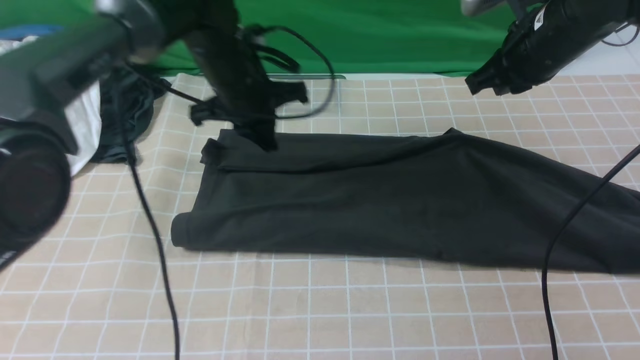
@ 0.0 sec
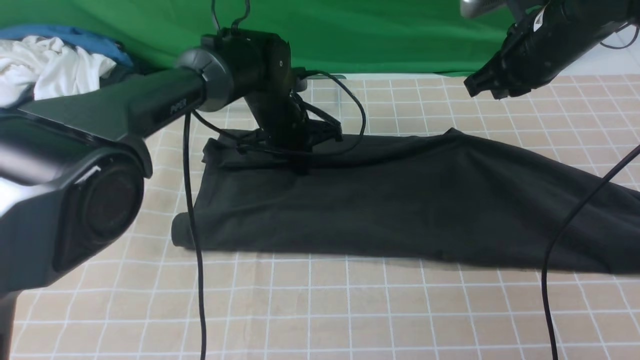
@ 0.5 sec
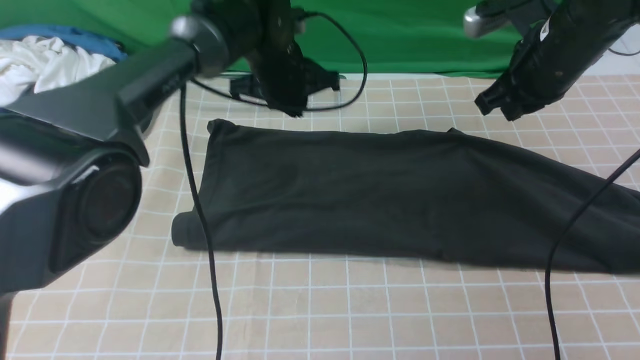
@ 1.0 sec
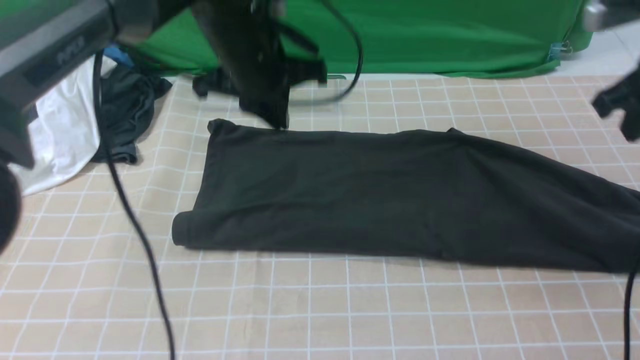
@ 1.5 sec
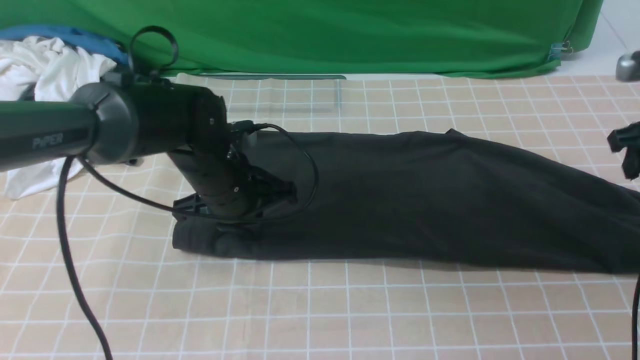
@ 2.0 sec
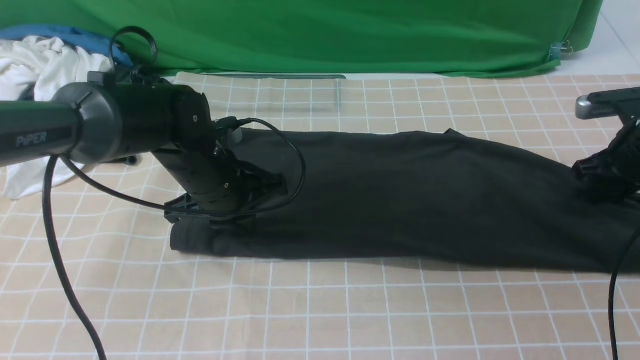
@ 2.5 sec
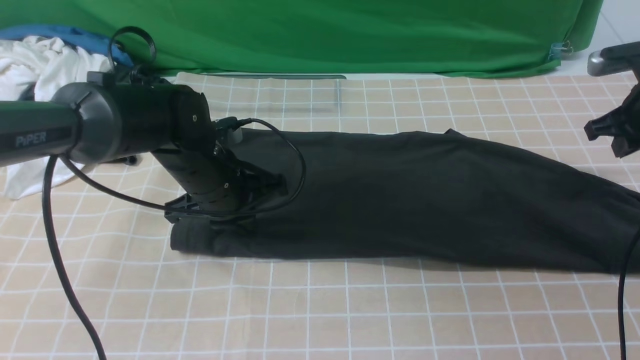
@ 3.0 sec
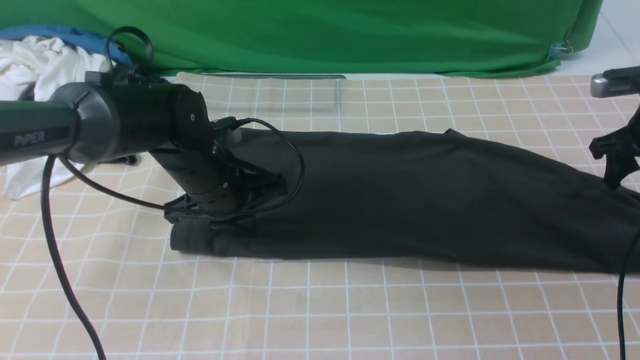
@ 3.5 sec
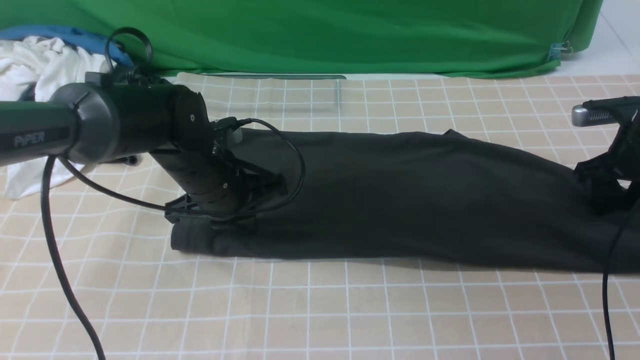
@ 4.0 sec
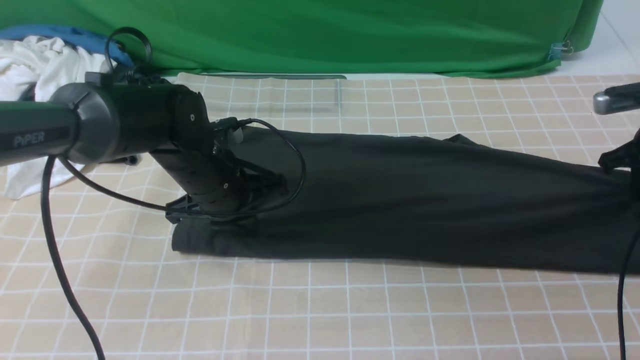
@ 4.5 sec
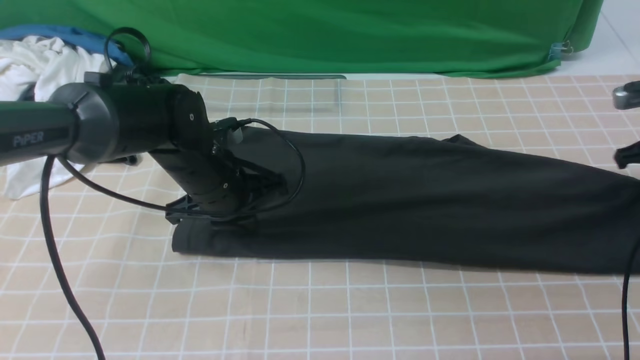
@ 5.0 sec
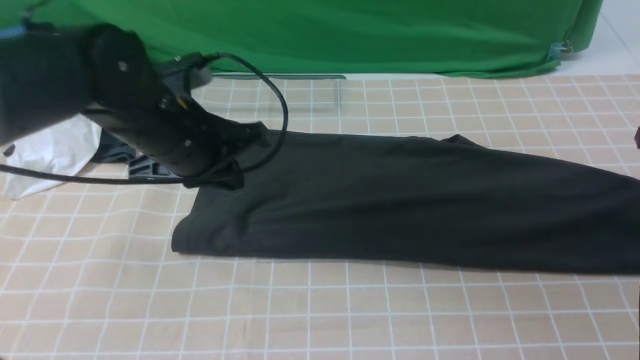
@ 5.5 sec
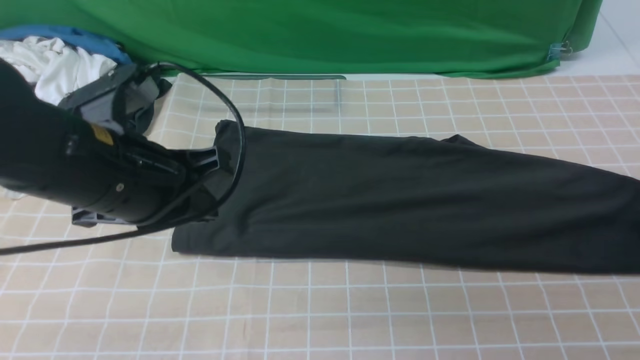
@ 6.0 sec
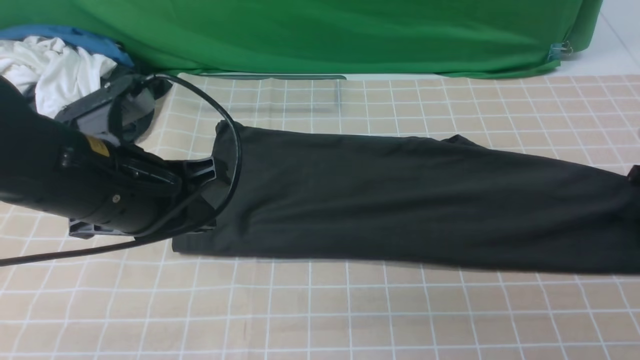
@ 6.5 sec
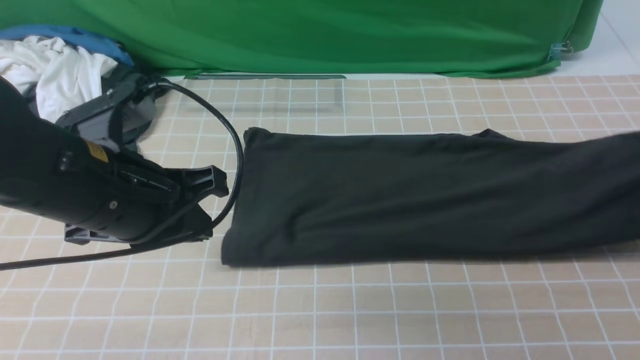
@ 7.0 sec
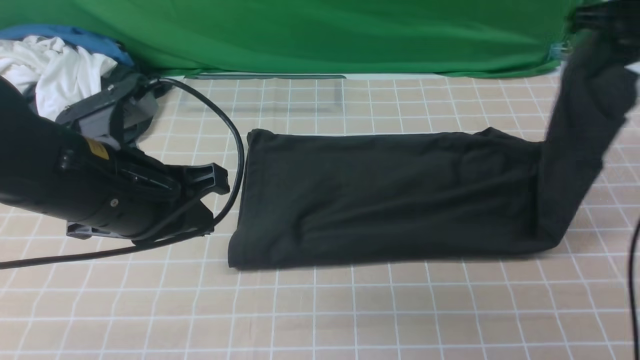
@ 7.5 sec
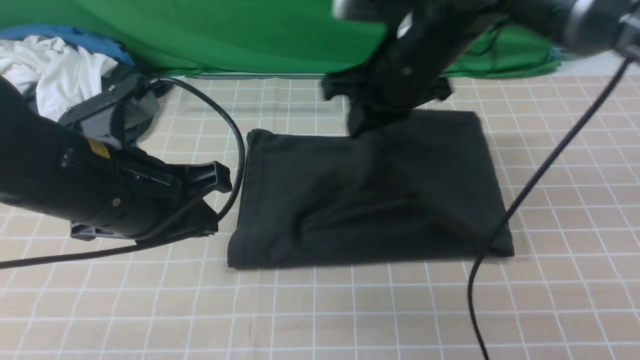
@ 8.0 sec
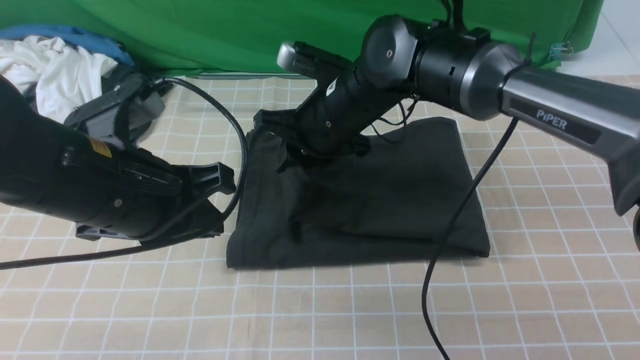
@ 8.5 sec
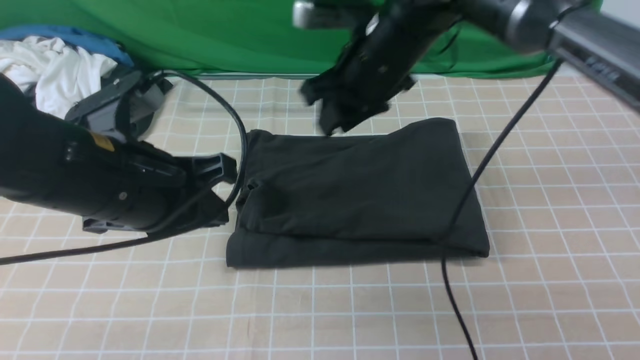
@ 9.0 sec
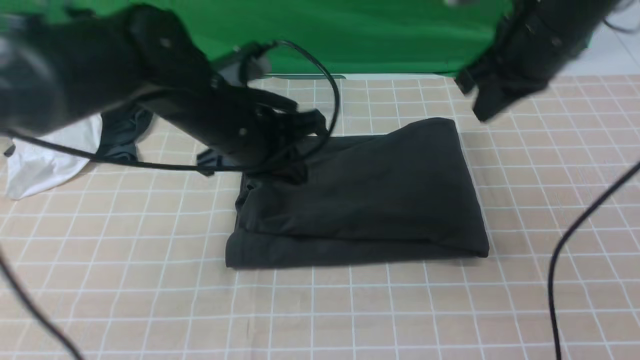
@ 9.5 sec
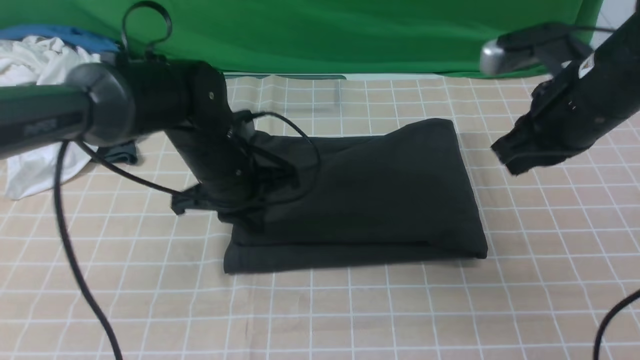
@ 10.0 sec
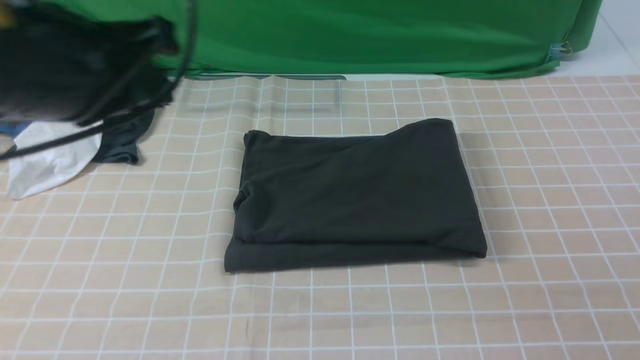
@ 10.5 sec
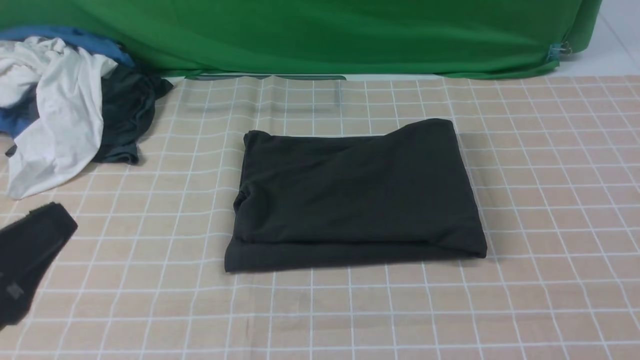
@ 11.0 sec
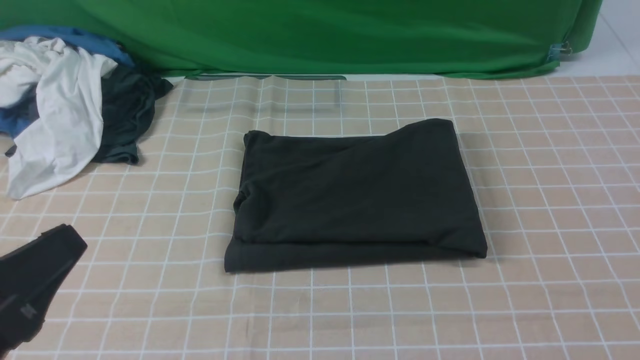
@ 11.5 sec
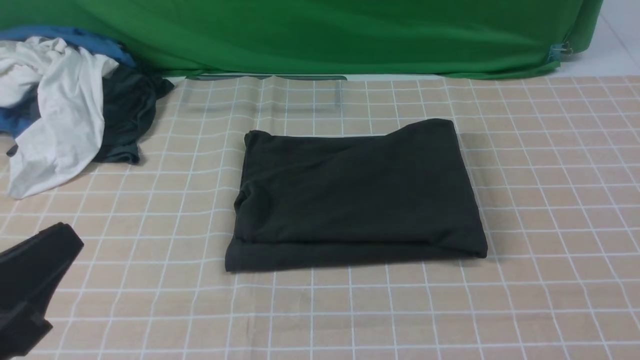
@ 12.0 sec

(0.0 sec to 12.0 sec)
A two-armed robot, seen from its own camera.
Step, 0.0 sec - 7.0 sec: use the right arm to clamp the right edge of the fabric.
Step, 7.5 sec - 8.5 sec: use the right arm to drag the right edge of the fabric to the left and folds it over the left edge.
0.0 sec - 2.0 sec: The right gripper is displaced to the right by about 15 cm, and opens its fingers. The left gripper goes approximately 10 cm backward and downward.
2.0 sec - 4.0 sec: The right gripper heads downward, covering roughly 5 cm, and closes and opens again.
4.0 sec - 6.0 sec: The right gripper heads to the right, covering roughly 10 cm, and opens. The left gripper is displaced upward and backward by some 15 cm.
6.0 sec - 8.0 sec: The right gripper travels to the left by some 40 cm, and closes up.
8.0 sec - 10.0 sec: The left gripper heads forward and downward, covering about 15 cm. Meanwhile the right gripper travels to the right and backward by approximately 15 cm.
10.0 sec - 12.0 sec: Both grippers move backward, about 30 cm. The right gripper opens.

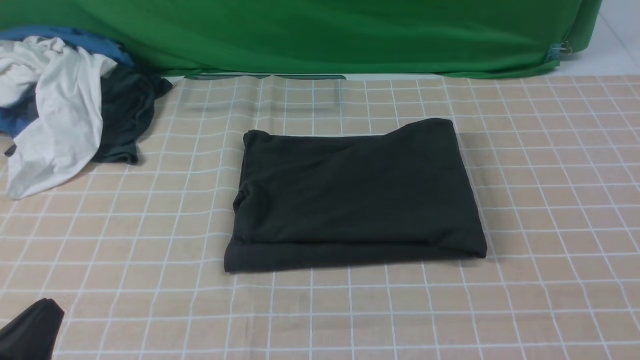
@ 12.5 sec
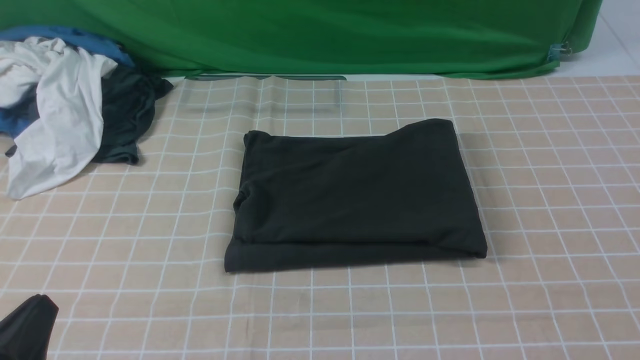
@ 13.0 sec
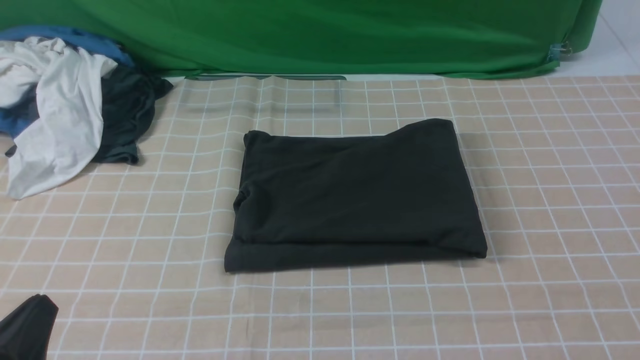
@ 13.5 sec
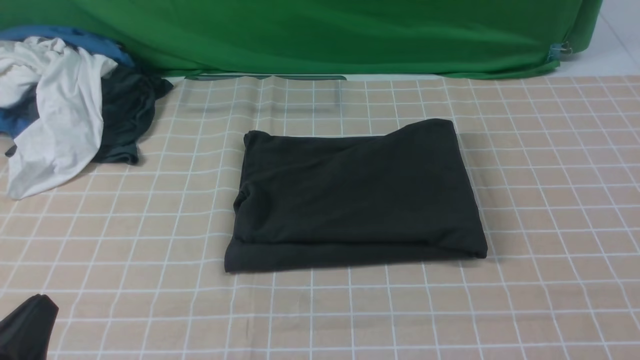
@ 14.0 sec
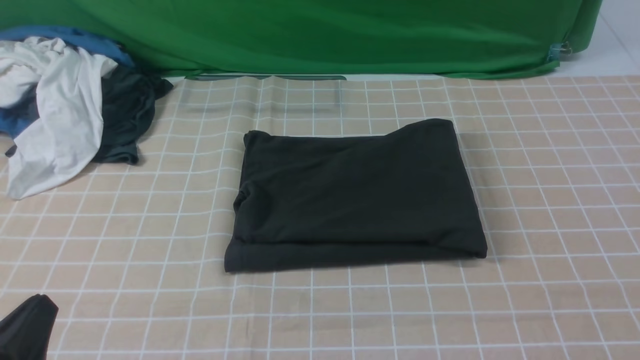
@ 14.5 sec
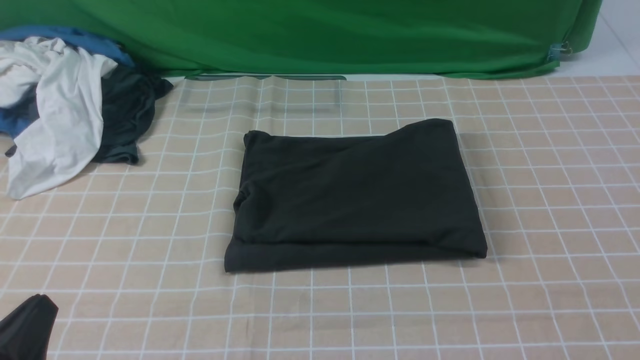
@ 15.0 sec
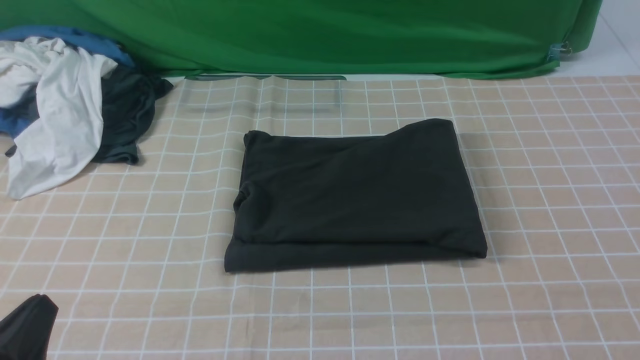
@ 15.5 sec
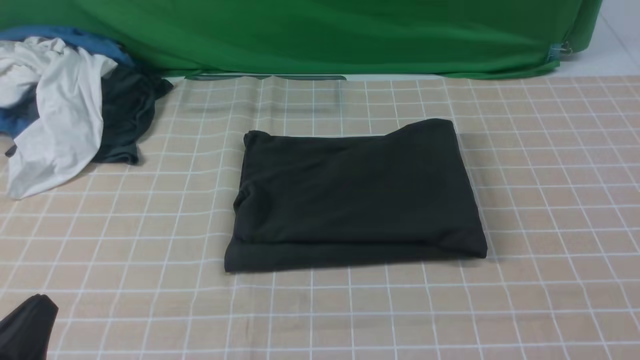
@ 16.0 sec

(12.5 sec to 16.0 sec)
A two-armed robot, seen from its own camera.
14.5 sec - 16.0 sec: Both grippers stay put.

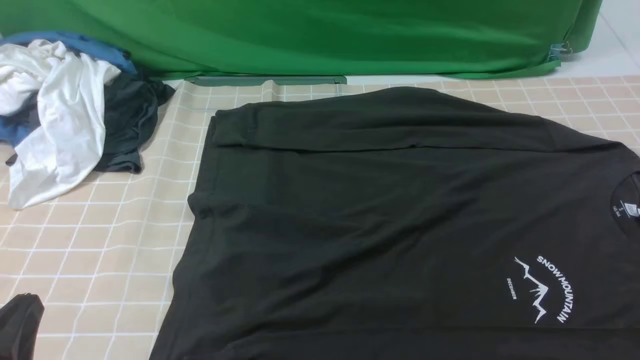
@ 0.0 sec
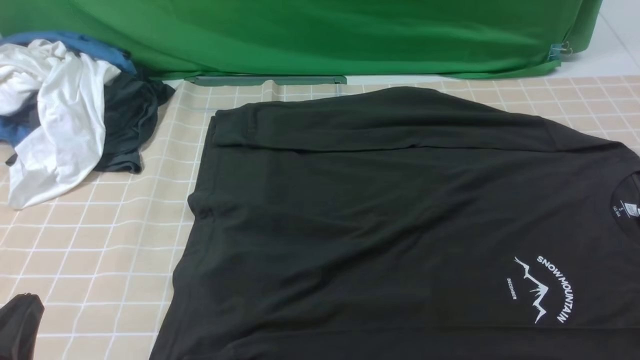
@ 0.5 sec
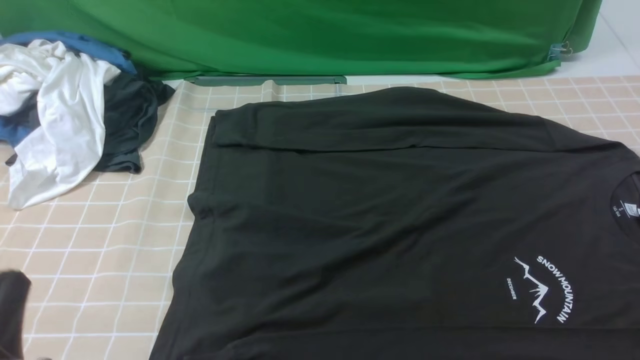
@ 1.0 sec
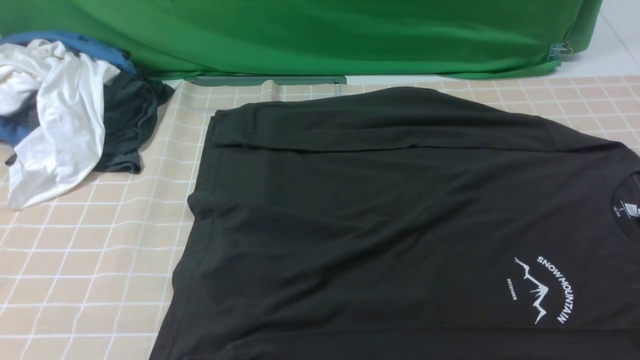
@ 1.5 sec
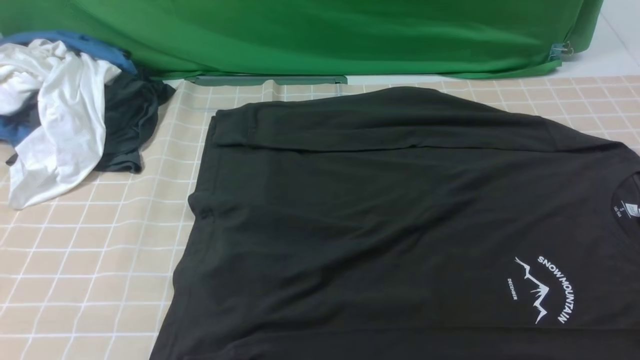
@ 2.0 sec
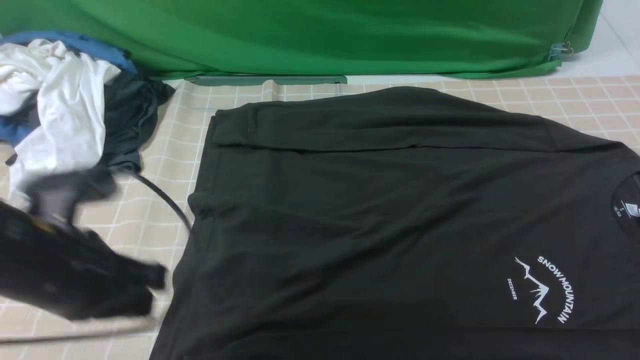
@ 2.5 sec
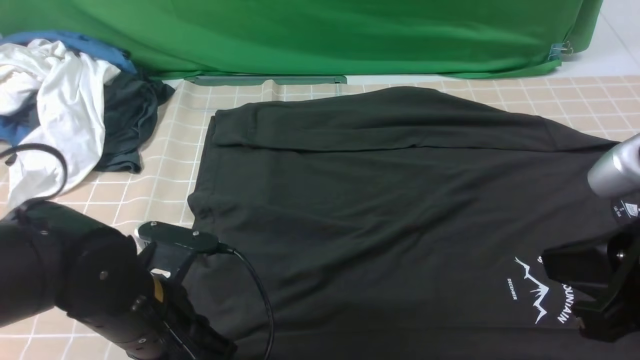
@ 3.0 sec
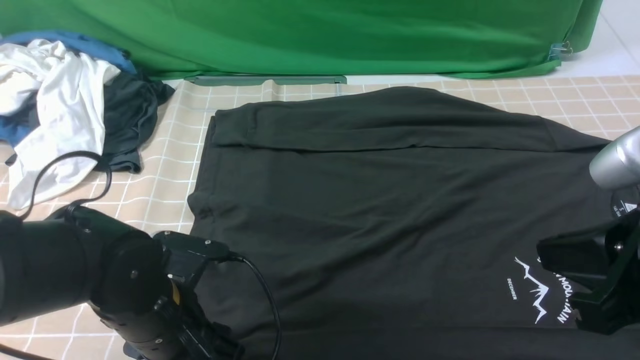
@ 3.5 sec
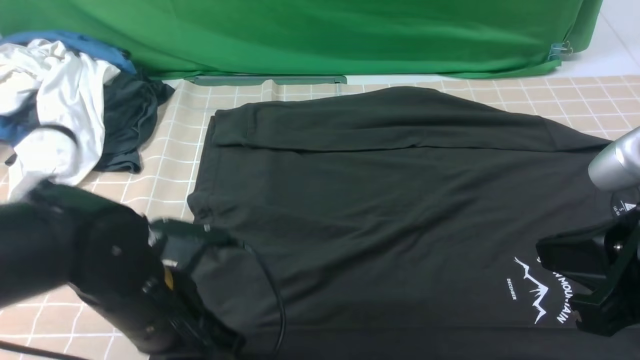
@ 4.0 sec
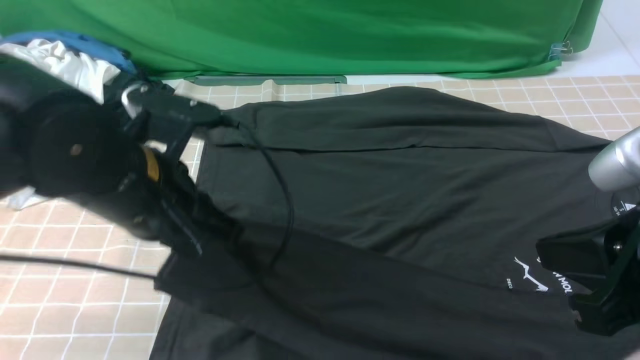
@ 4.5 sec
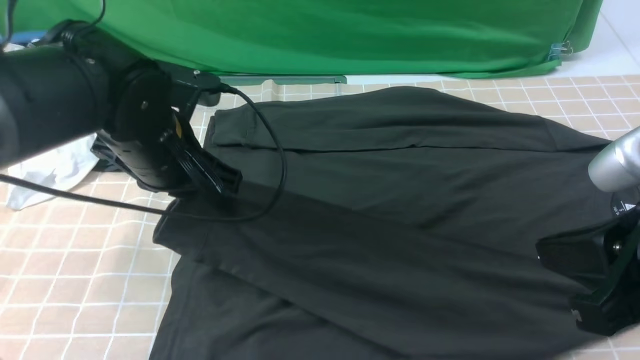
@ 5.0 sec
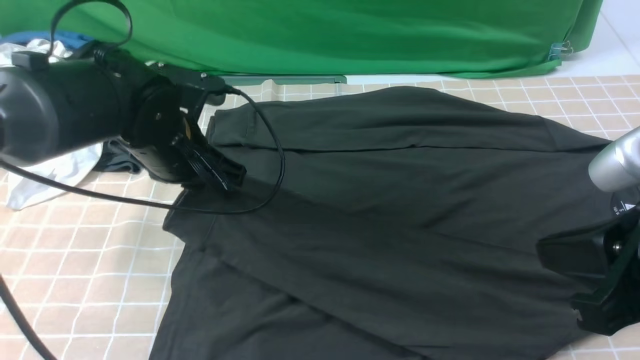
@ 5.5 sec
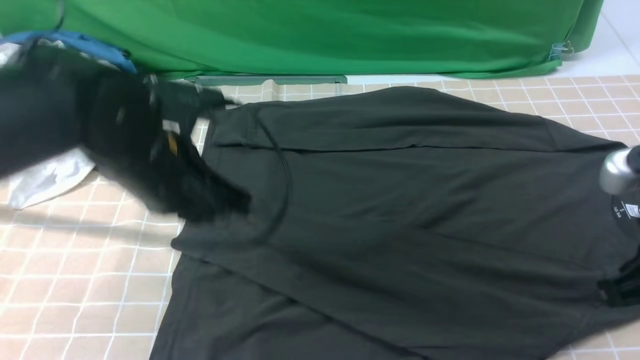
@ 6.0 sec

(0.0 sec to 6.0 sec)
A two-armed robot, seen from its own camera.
Step, 0.0 sec - 4.0 sec: use the left arm to clamp the cuff closest to it.
Step, 4.5 sec - 5.5 sec: use the left arm to drag and place the cuff at the centered position on the left edge of the fabric.
0.0 sec - 2.0 sec: The left gripper heads upward, covering some 20 cm.
2.0 sec - 4.0 sec: The right gripper is displaced to the left and forward by roughly 15 cm; the left gripper travels downward, to the right and forward by roughly 20 cm, and opens, then closes once more.
4.0 sec - 6.0 sec: The left gripper shifts some 5 cm forward; the right gripper shifts by some 5 cm.
